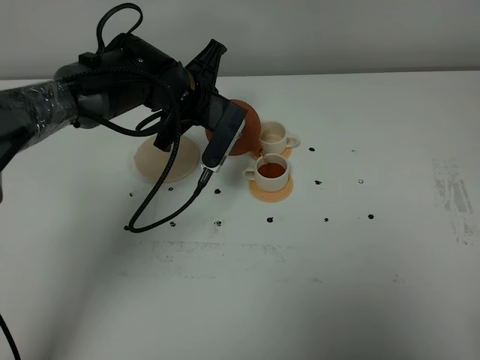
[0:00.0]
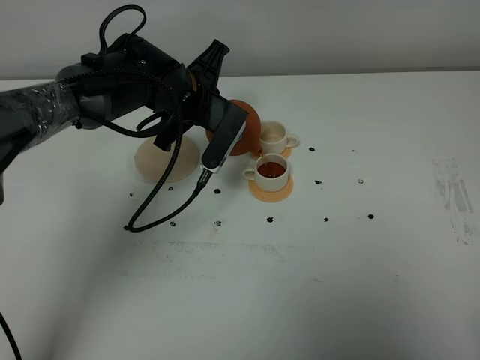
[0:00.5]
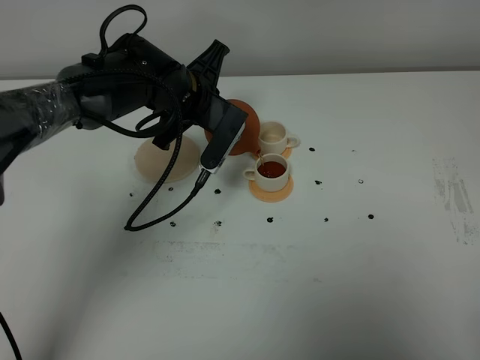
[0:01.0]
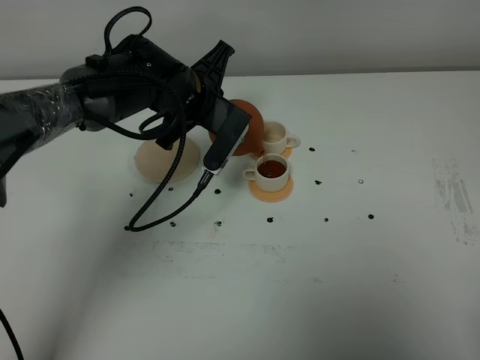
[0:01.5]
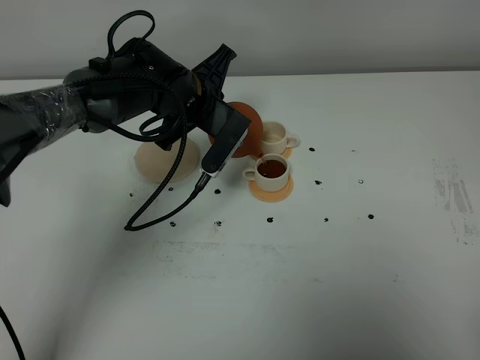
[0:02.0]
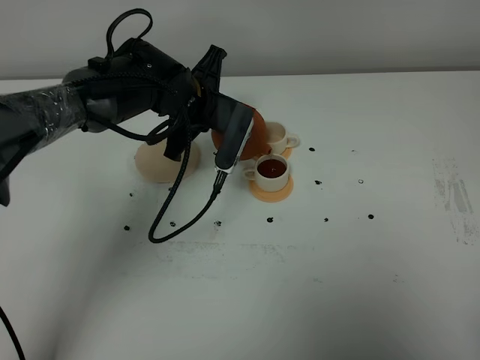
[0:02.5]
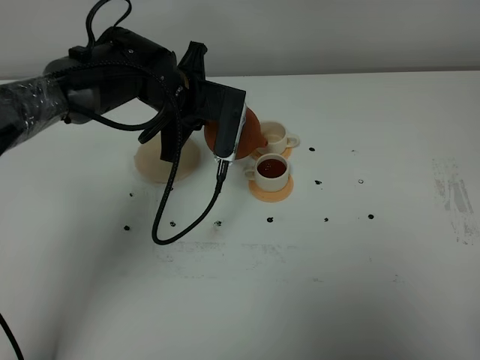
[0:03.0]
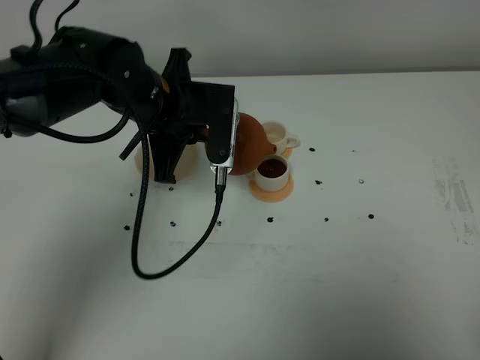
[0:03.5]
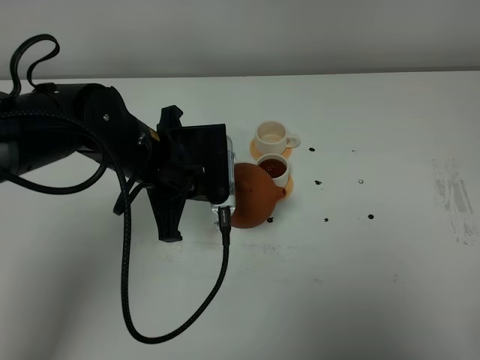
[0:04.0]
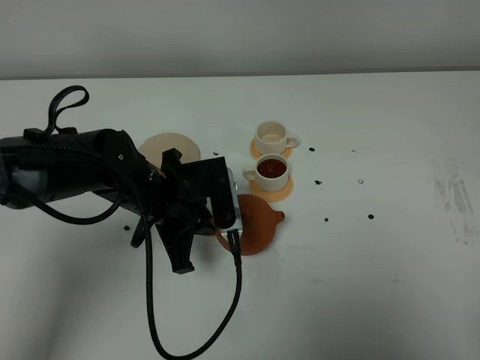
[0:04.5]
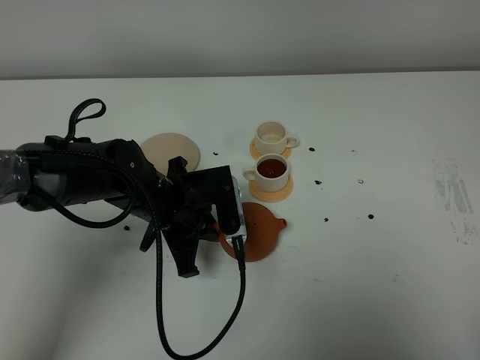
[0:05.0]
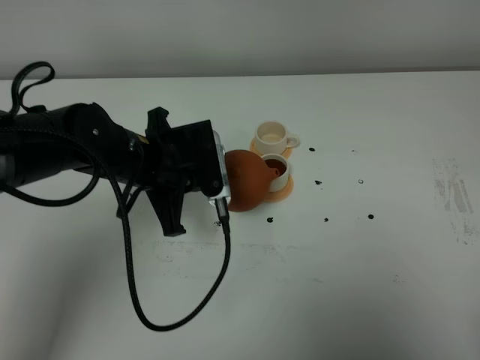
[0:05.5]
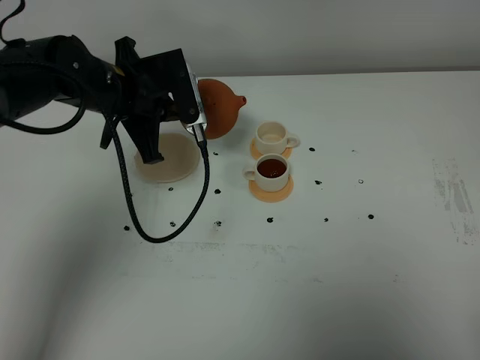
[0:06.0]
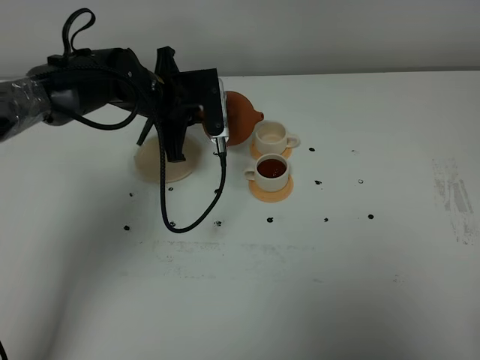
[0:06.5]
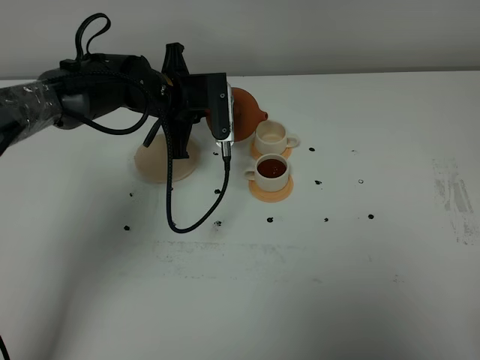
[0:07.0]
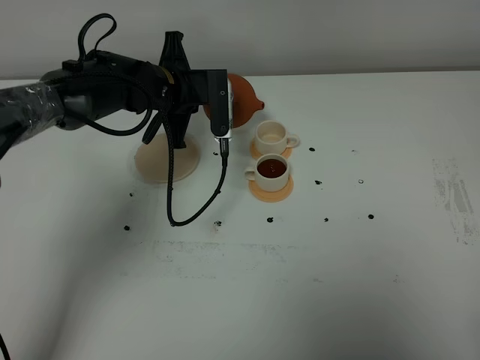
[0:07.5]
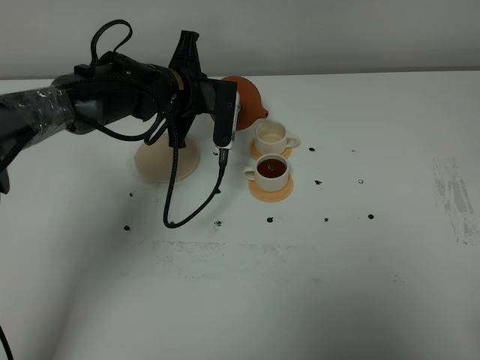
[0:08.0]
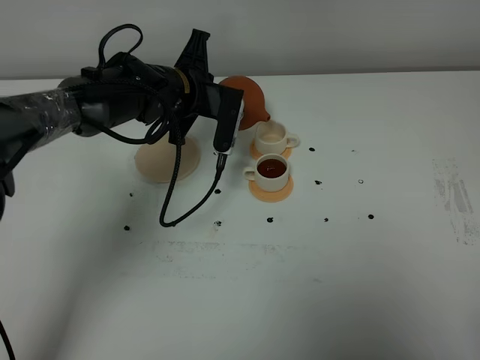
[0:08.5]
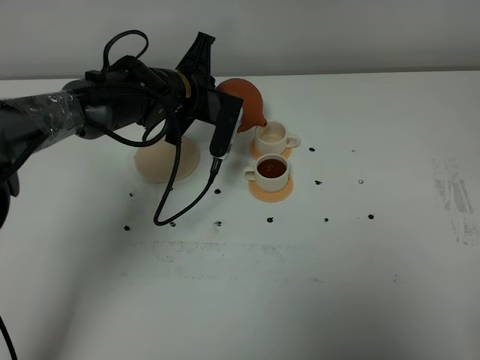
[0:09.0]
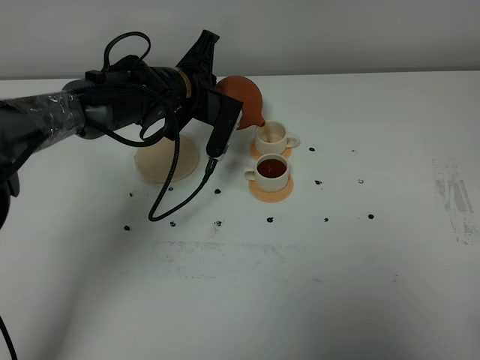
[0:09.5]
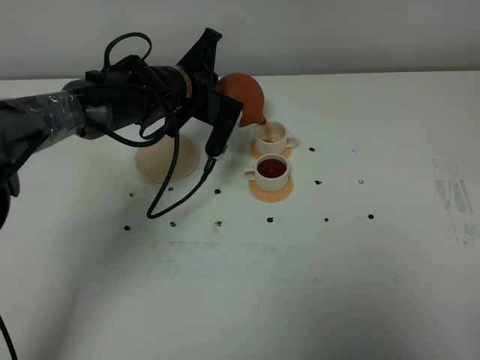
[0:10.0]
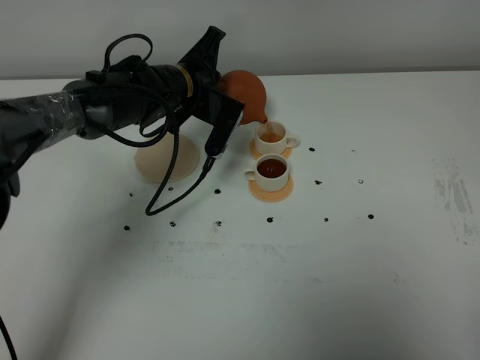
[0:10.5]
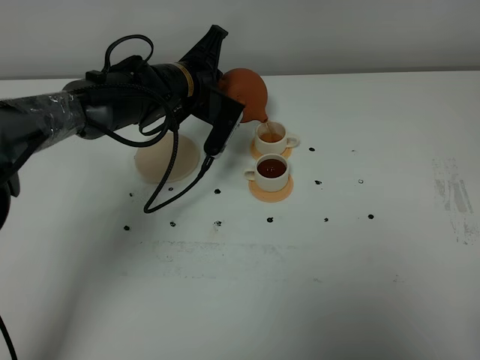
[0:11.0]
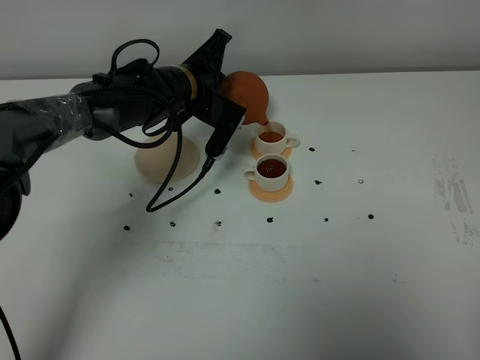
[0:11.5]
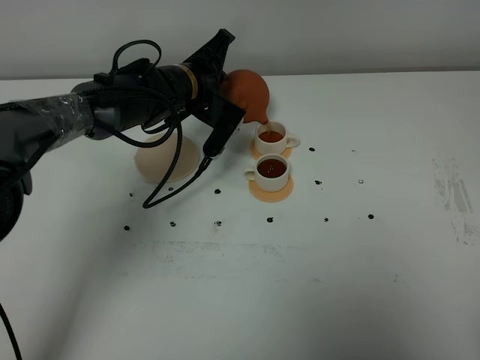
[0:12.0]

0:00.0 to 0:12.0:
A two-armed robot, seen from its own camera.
Task of the whole recording: grasp the brown teapot and pour the tea into the two white teacups one by one, put the brown teapot back in its original place.
0:00.0 to 0:02.0: The grippers make only small movements.
0:02.0 to 0:04.0: The left gripper shifts roughly 10 cm backward.
0:04.0 to 0:06.0: The left gripper is displaced forward by some 10 cm.
0:06.0 to 0:08.0: The left gripper goes approximately 5 cm to the right.
0:10.0 to 0:12.0: There are only small adjustments of the grippers.

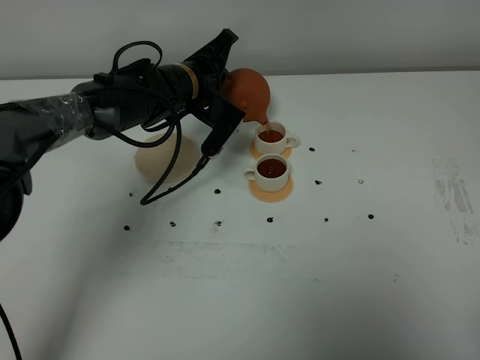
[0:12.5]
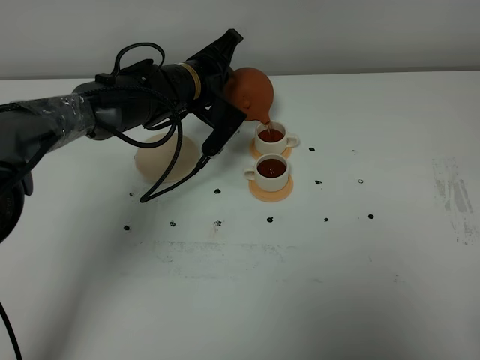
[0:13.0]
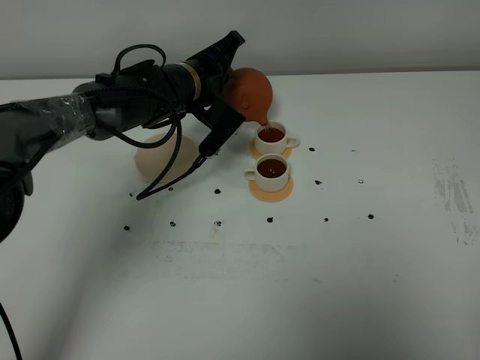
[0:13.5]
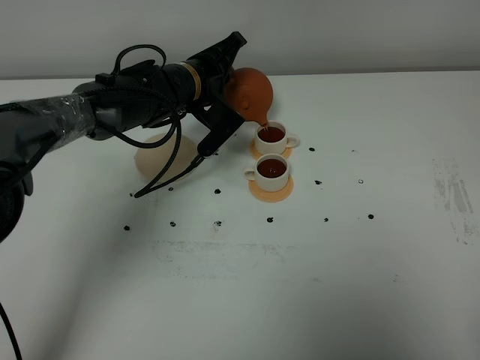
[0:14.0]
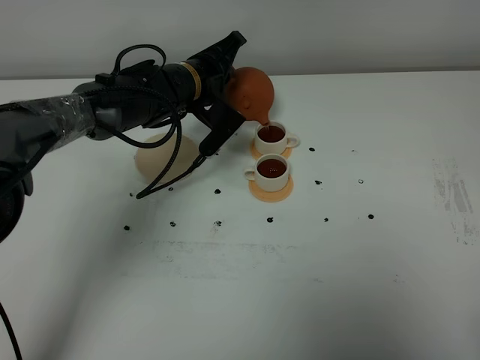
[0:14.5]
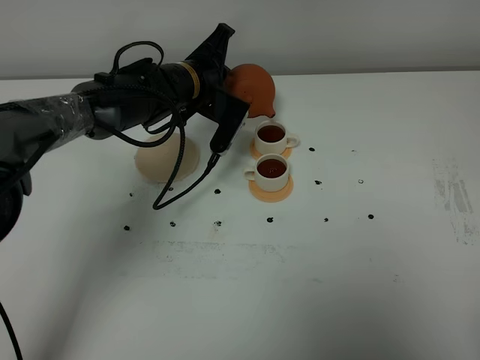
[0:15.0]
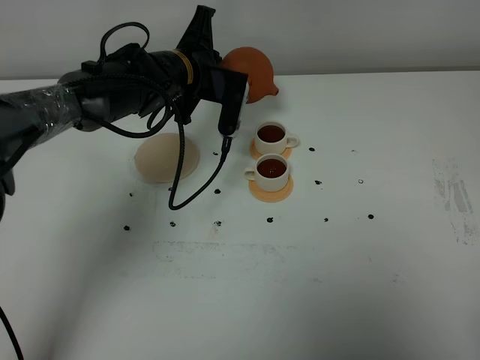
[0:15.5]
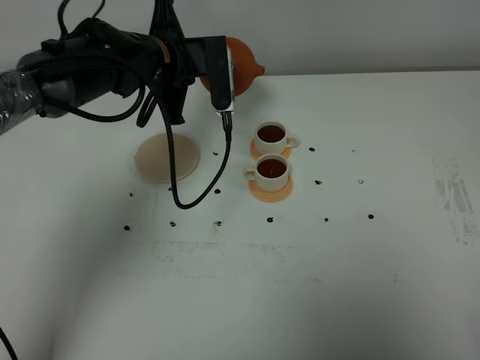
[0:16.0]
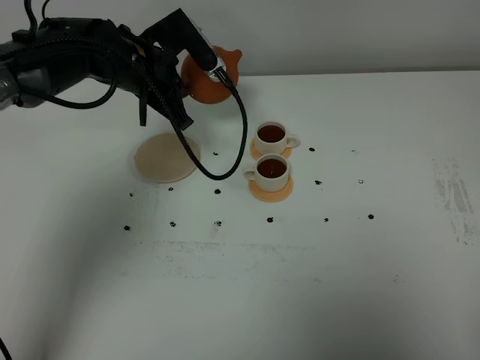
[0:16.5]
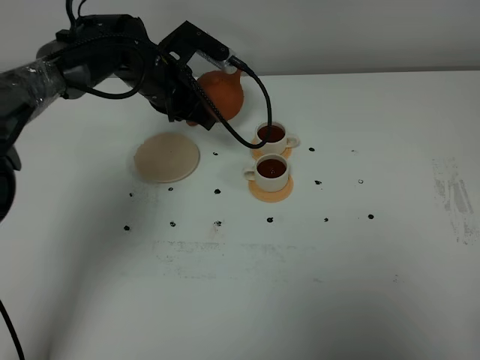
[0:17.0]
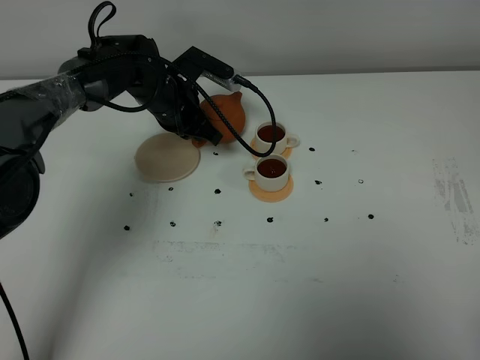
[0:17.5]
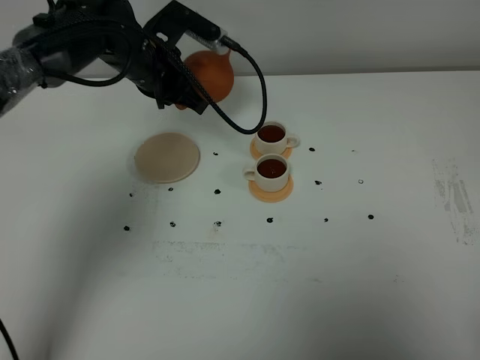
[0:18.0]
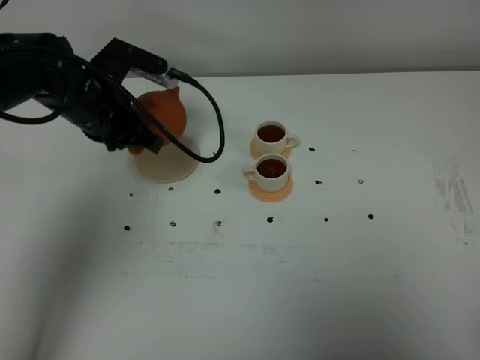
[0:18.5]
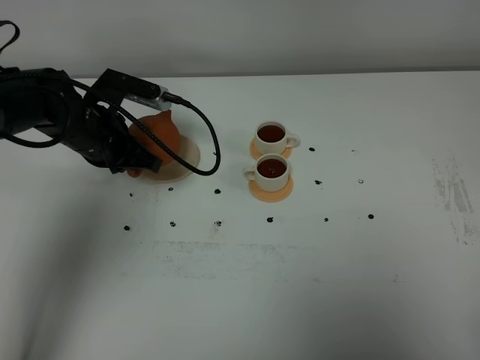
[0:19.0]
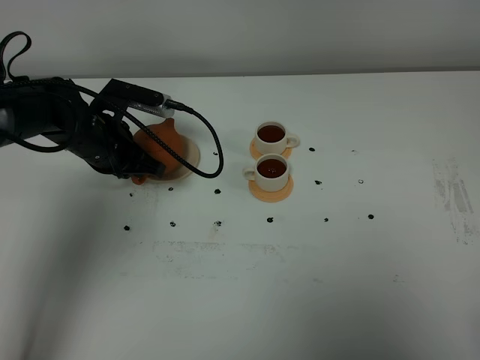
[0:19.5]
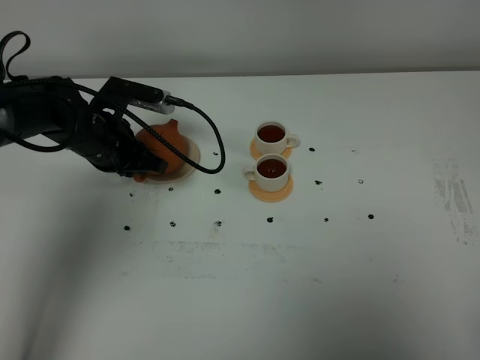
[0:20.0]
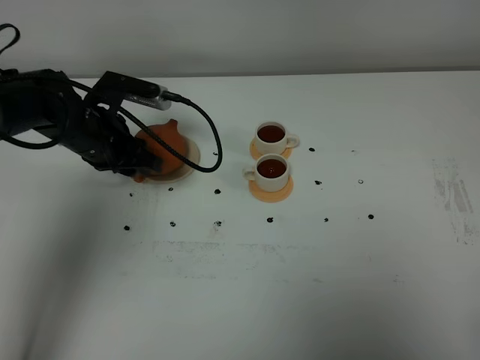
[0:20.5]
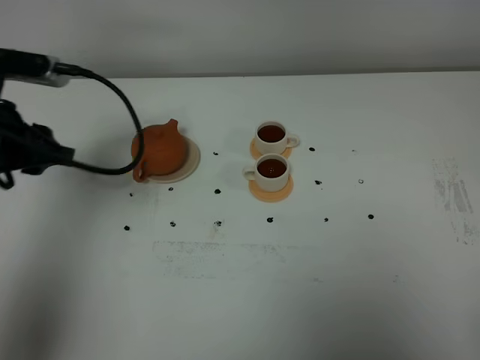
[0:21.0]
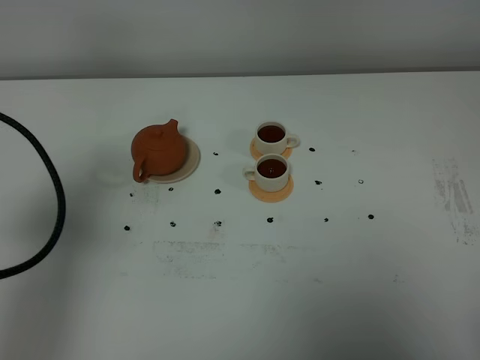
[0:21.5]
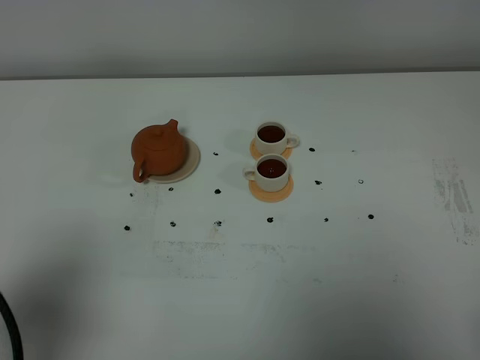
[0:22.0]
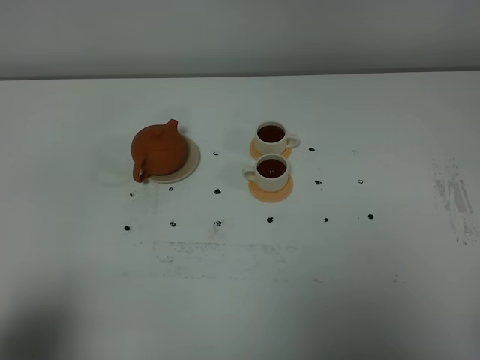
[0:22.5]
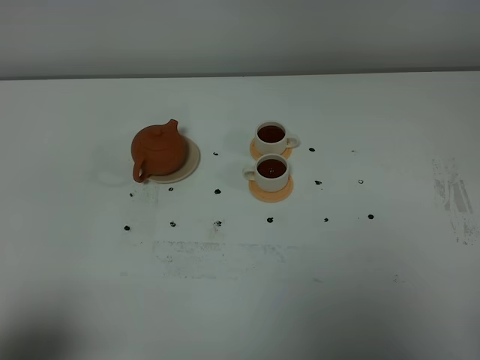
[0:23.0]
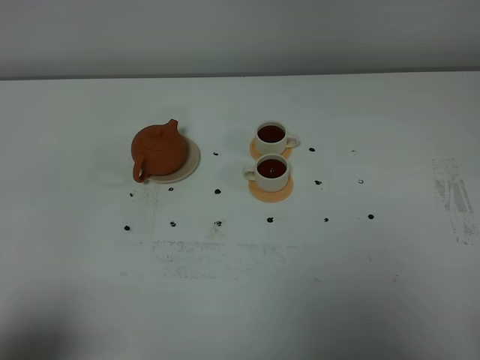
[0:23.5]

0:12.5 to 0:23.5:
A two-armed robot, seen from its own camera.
Task of the whole recording: grasp the brown teapot and pour the tea into the two white teacups one by one, put the brown teapot back in its original place.
Step, 0:12.5 to 0:15.0: Pour tea into the teacup with the left gripper.
0:12.5 to 0:14.5: The grippers make only small movements.
0:14.5 to 0:16.0: The left gripper goes some 5 cm upward.
0:16.0 to 0:18.0: The left gripper travels downward and back again, some 10 cm each way.
0:18.0 to 0:20.0: The left gripper goes approximately 10 cm downward, to the left and backward.
0:20.0 to 0:21.5: The left gripper travels backward, upward and to the left by about 30 cm, and opens its fingers.
0:21.5 to 0:23.5: The left gripper heads backward, covering some 20 cm.
